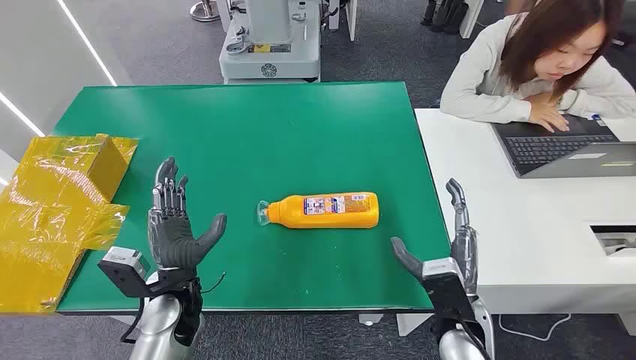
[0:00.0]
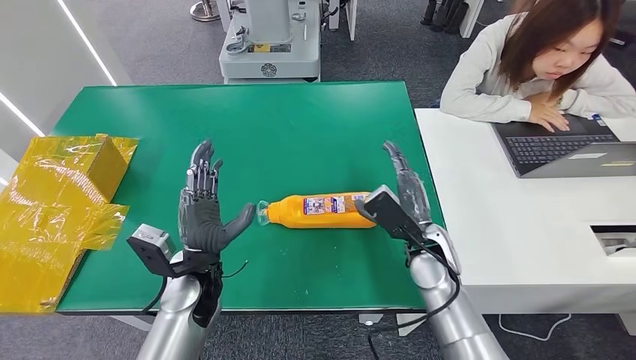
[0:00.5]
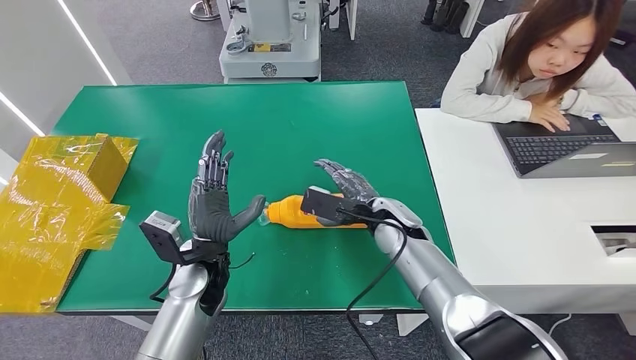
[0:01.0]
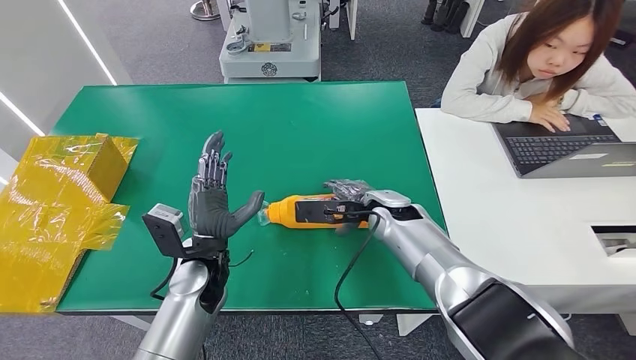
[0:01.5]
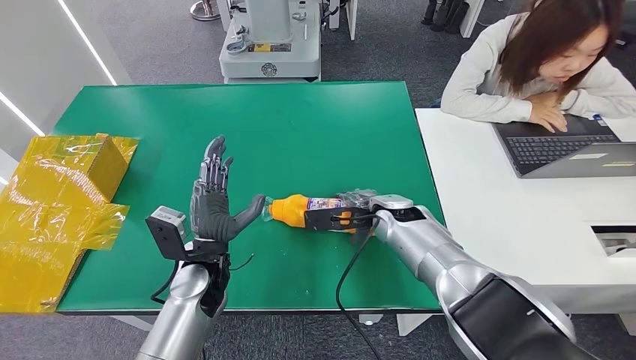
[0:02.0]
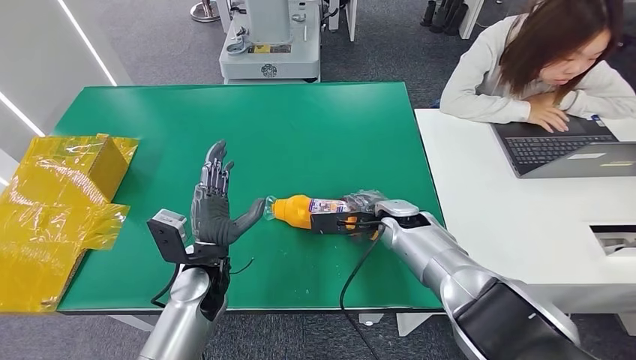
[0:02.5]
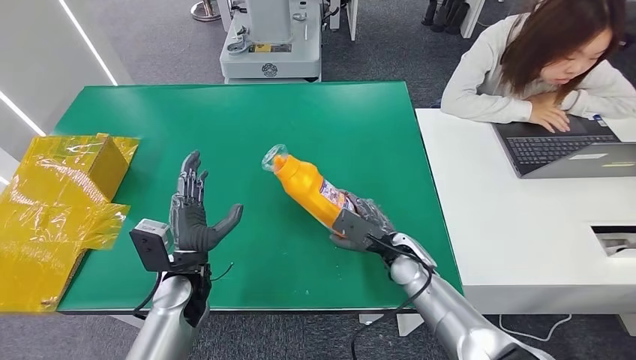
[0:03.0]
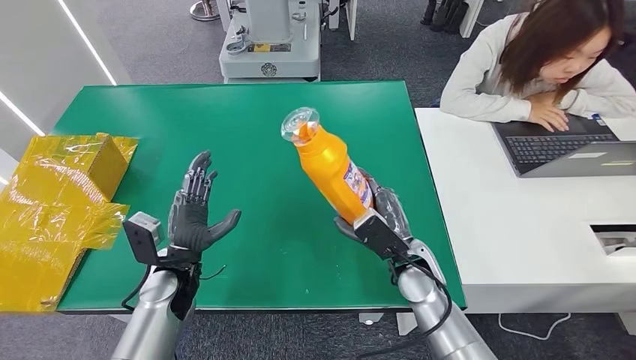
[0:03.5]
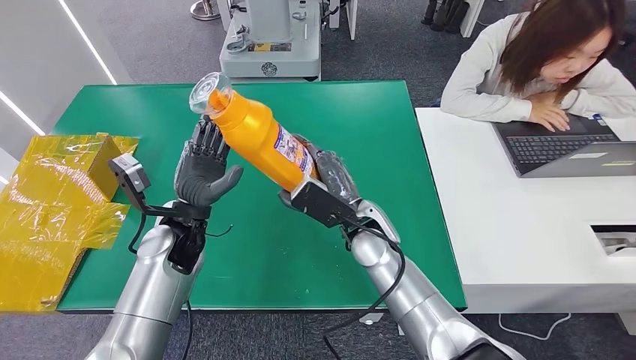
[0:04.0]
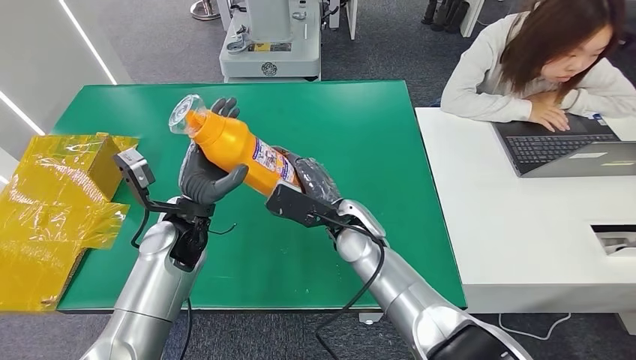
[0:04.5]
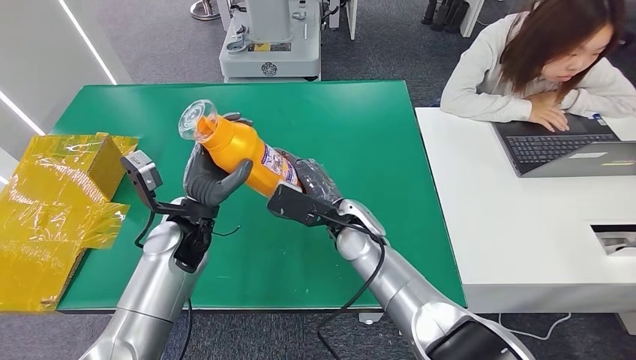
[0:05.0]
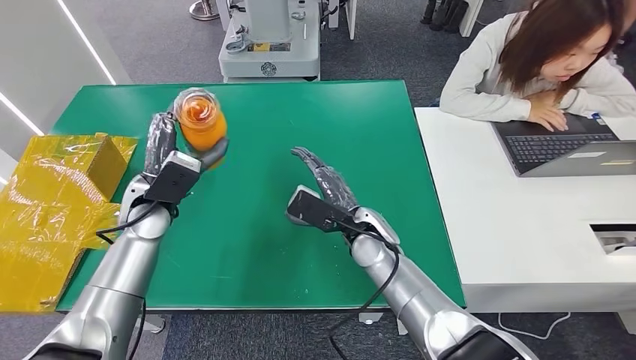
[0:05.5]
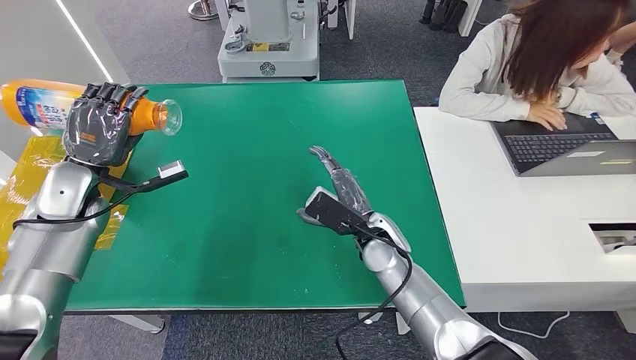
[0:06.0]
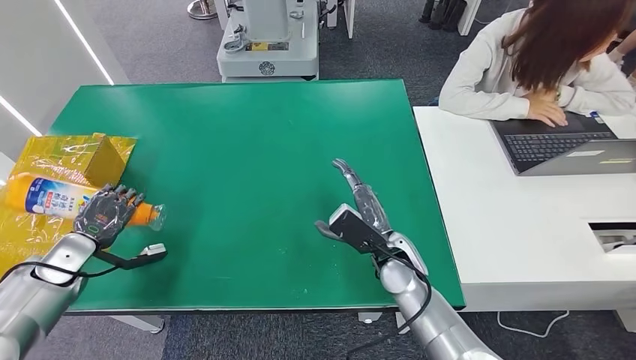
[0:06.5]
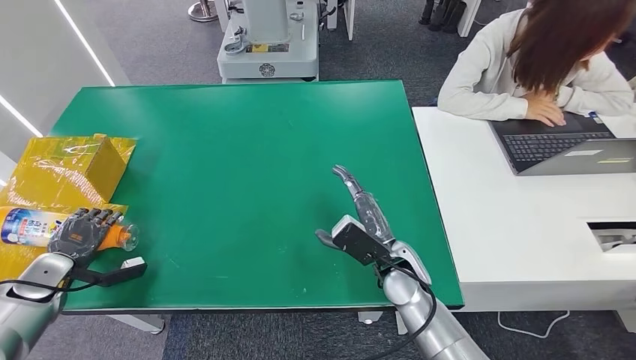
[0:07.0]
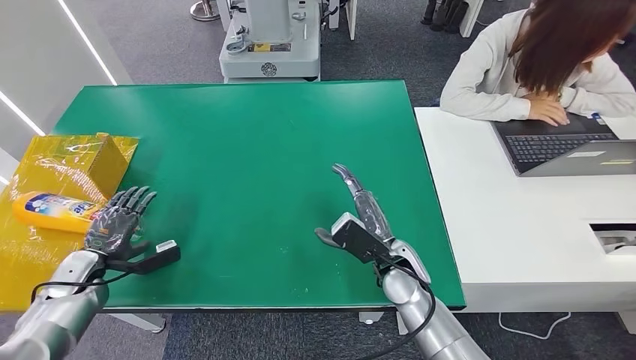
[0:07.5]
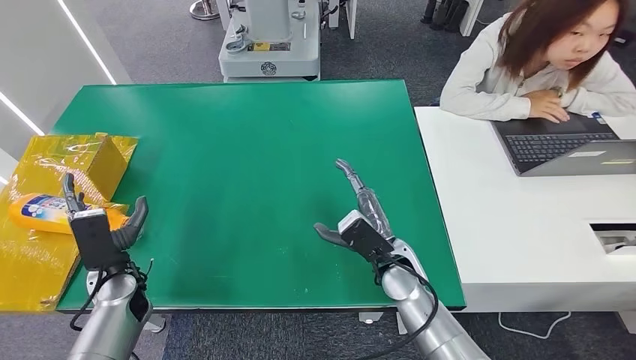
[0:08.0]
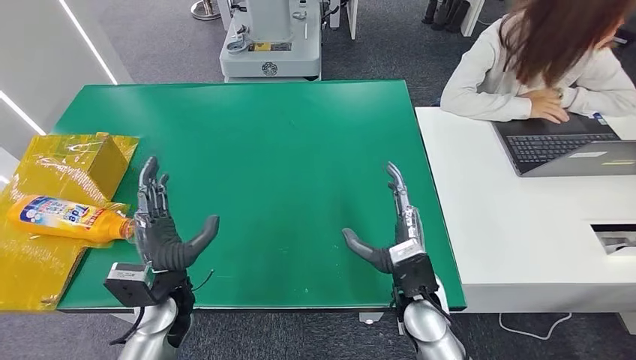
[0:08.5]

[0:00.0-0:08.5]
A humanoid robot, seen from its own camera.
Step, 0:00.0 to 0:04.5: Pick up the bottle from the table.
Step, 0:05.5 to 0:08.5: Turn the bottle to the front side.
0:06.5 to 0:08.5: The right hand moves backward, approximately 5 cm, while the left hand travels to the right by roughly 25 cm.
